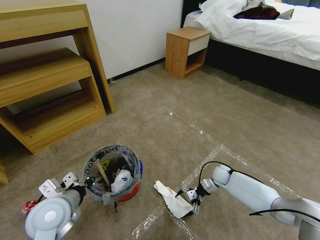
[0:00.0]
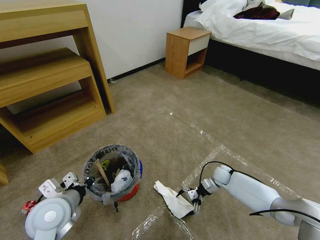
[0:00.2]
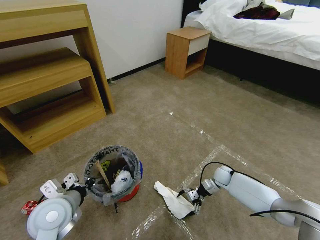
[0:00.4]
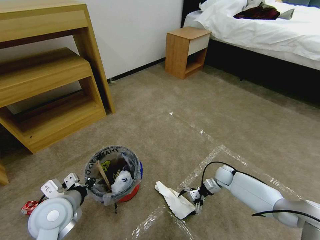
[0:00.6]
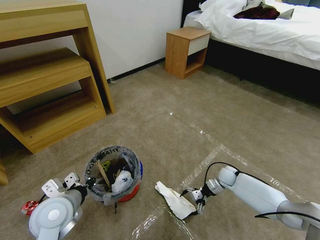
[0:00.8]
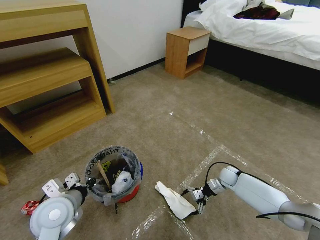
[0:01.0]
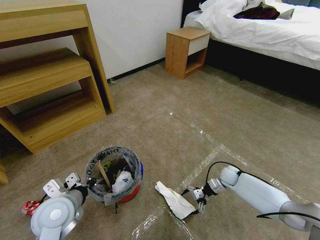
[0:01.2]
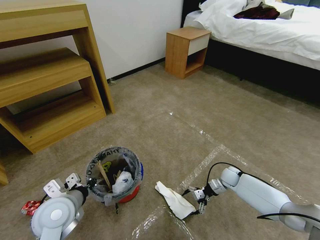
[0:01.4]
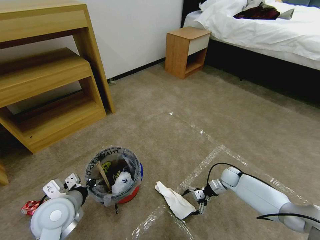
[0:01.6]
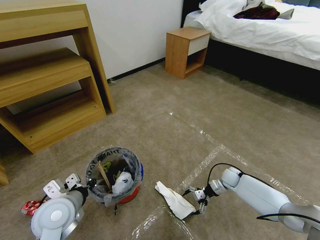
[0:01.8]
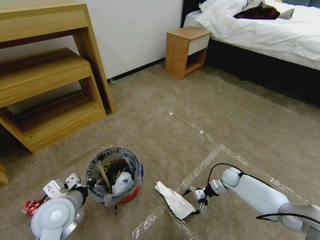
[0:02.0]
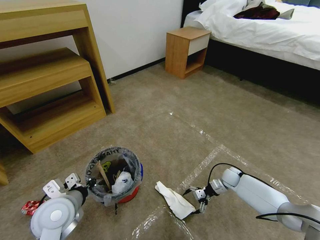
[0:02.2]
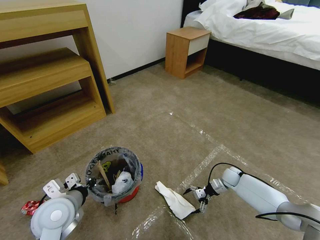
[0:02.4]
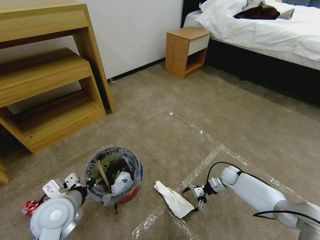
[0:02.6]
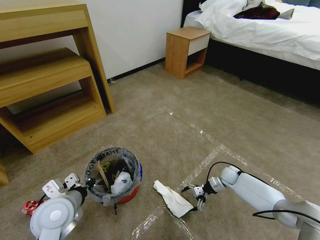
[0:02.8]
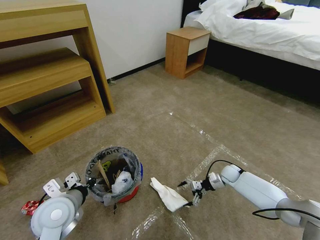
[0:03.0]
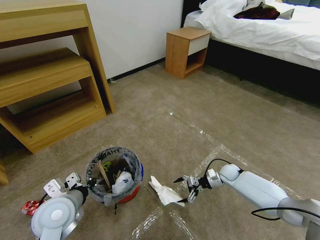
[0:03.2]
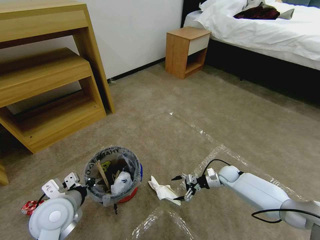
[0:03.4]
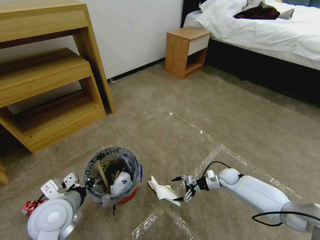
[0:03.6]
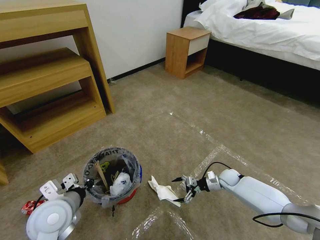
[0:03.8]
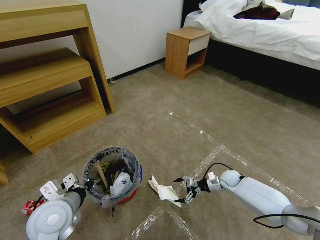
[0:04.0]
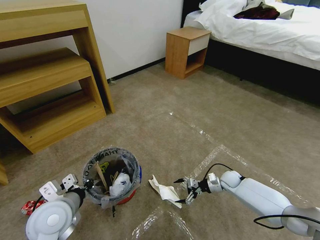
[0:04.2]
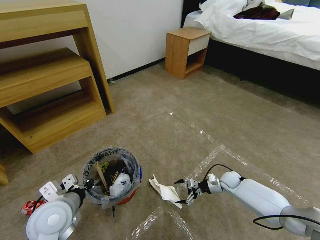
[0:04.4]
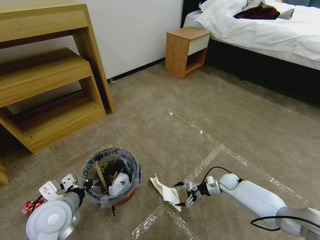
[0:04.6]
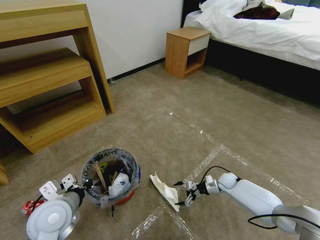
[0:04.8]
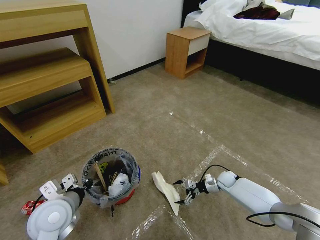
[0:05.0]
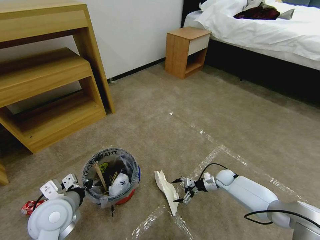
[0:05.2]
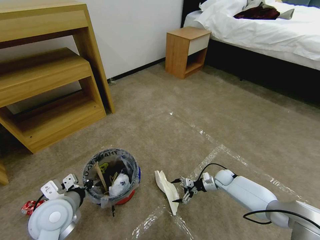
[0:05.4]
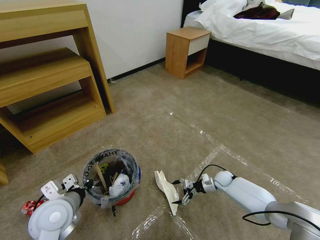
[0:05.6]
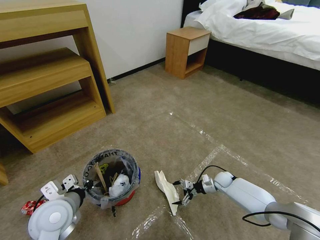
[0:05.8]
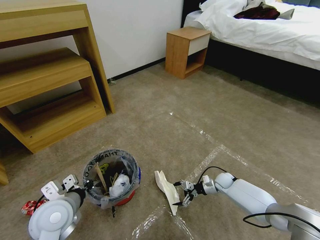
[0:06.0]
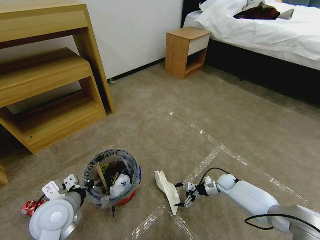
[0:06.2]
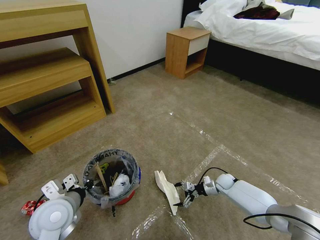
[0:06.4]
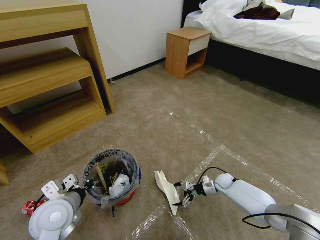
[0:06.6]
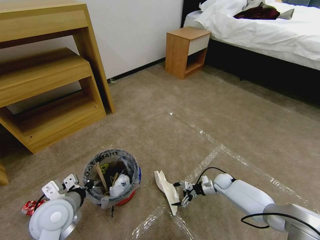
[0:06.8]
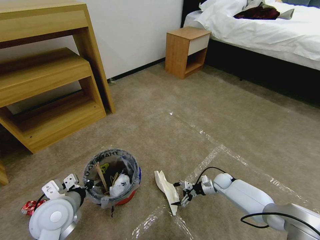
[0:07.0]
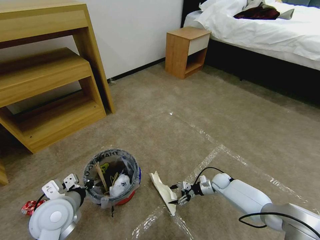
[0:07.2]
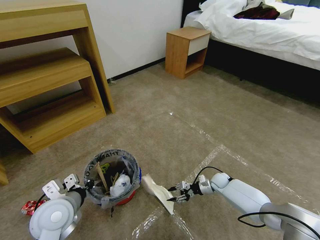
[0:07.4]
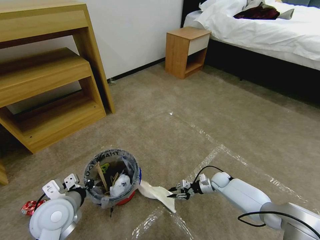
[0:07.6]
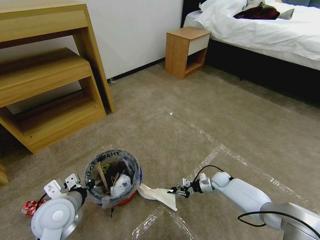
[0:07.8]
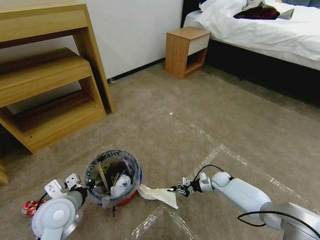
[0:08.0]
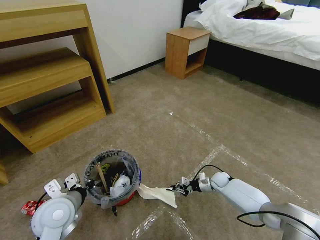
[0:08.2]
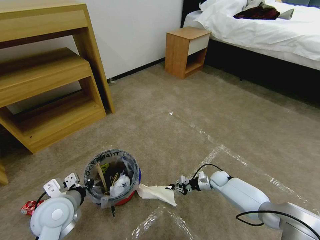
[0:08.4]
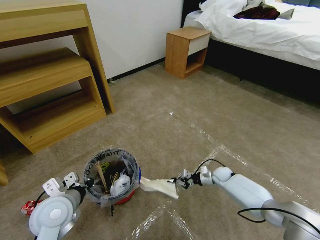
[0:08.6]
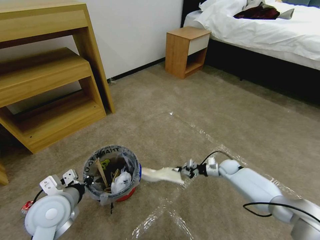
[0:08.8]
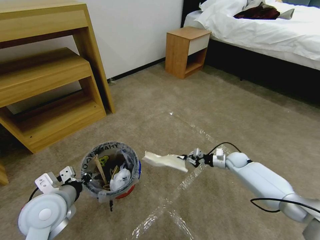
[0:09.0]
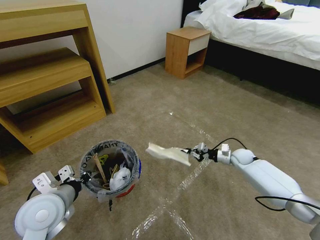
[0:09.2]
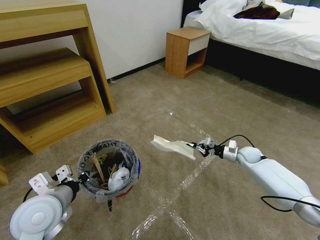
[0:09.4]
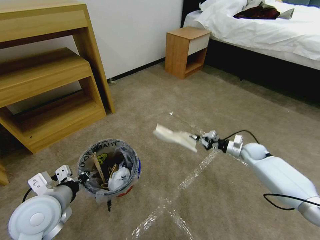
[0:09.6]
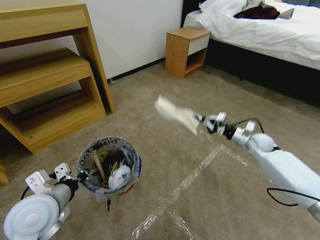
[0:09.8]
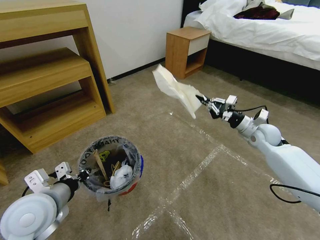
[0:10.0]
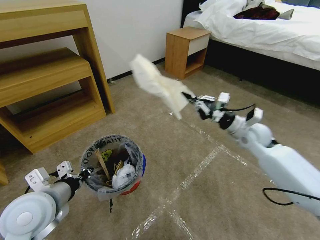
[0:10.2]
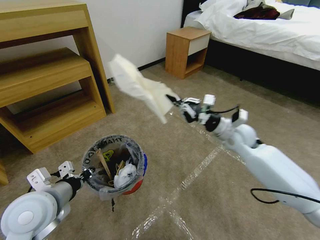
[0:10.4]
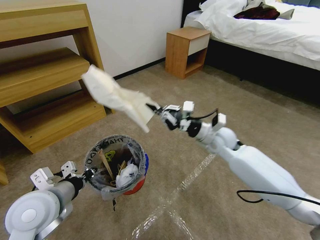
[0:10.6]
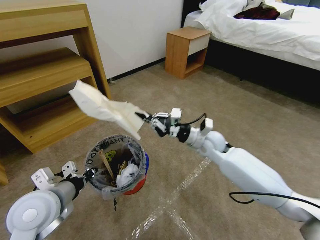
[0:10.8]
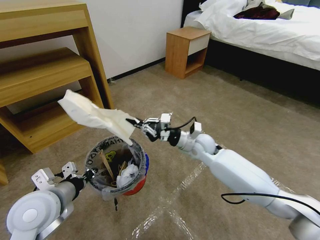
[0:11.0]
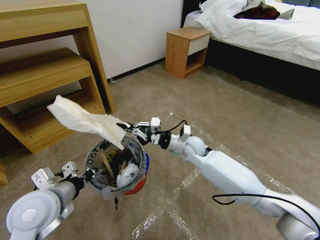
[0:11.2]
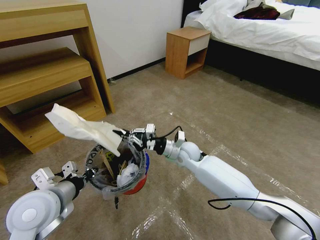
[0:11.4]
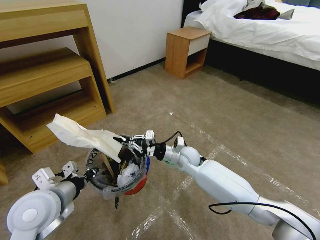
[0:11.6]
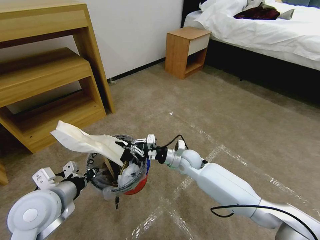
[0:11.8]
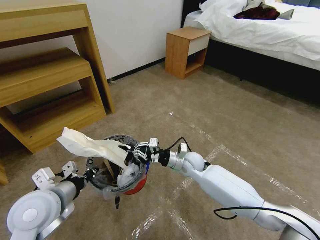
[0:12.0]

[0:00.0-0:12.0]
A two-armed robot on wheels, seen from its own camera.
Task of the whole recording: Pick up the trash bin and place the garbage on the floor into it.
0:00.0 to 0:03.0: The grippers move only a little.
0:03.0 to 0:06.0: The grippers make only small movements.
0:06.0 to 0:07.6: The right gripper closes.
0:07.6 to 0:09.0: The right gripper heads upward, to the right and forward, covering some 10 cm.
0:09.0 to 0:10.4: The right gripper shifts roughly 25 cm upward and to the left.
0:10.4 to 0:12.0: The right gripper moves to the left and downward, approximately 20 cm.

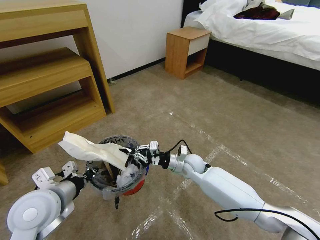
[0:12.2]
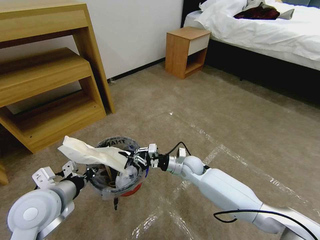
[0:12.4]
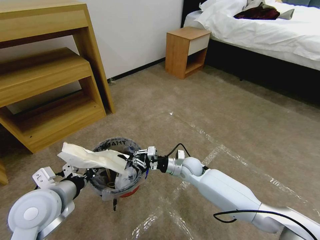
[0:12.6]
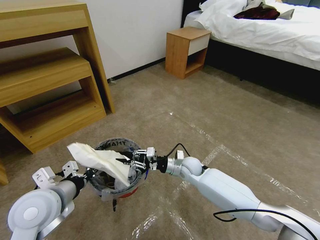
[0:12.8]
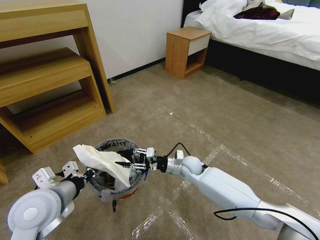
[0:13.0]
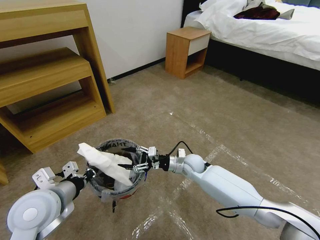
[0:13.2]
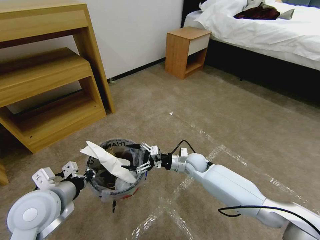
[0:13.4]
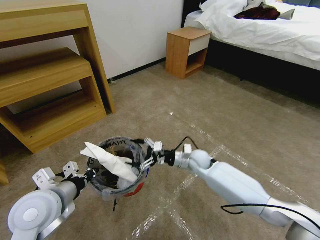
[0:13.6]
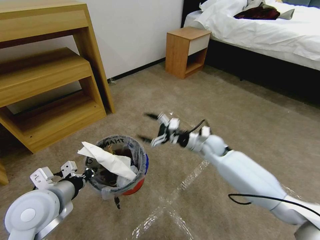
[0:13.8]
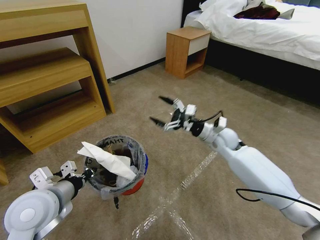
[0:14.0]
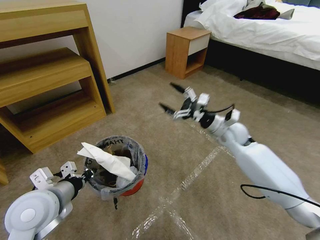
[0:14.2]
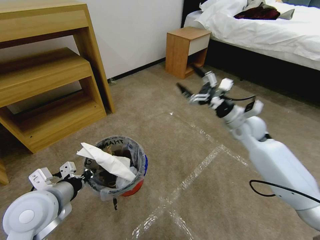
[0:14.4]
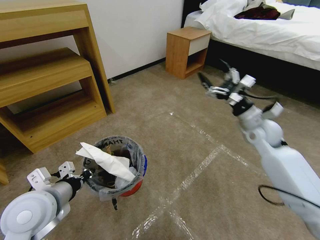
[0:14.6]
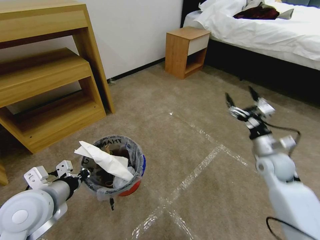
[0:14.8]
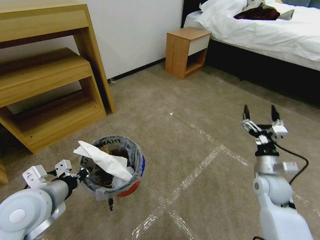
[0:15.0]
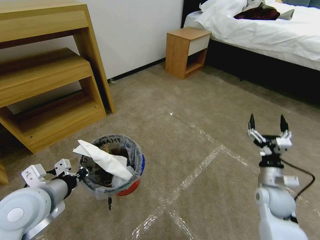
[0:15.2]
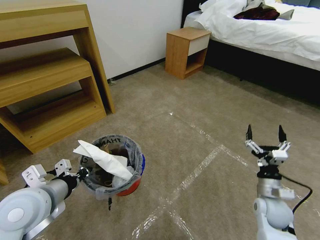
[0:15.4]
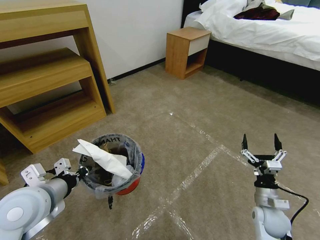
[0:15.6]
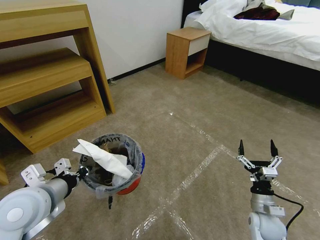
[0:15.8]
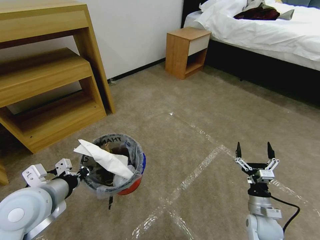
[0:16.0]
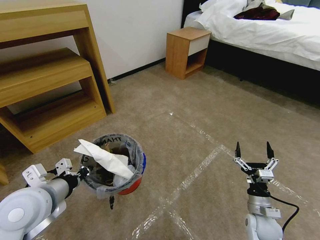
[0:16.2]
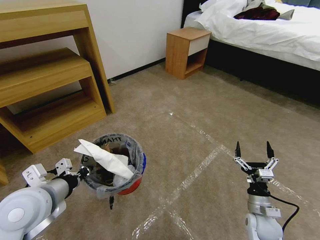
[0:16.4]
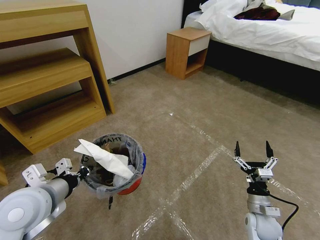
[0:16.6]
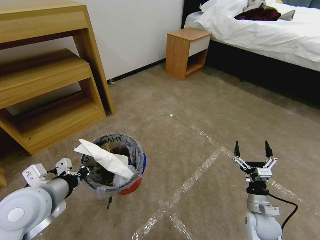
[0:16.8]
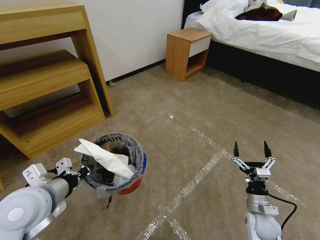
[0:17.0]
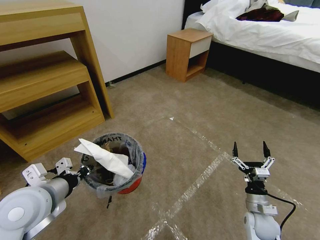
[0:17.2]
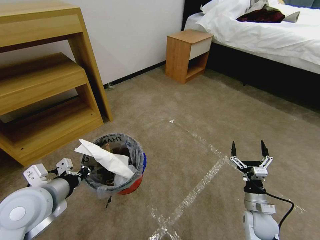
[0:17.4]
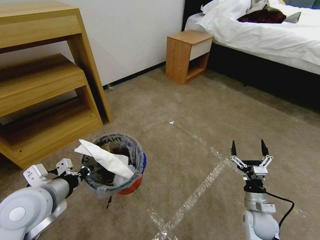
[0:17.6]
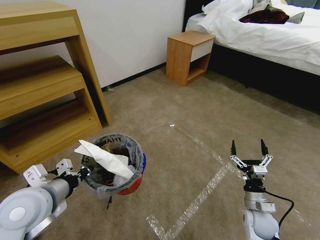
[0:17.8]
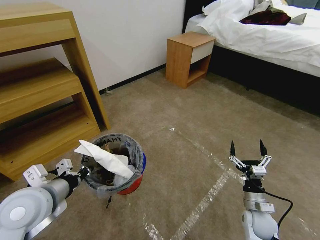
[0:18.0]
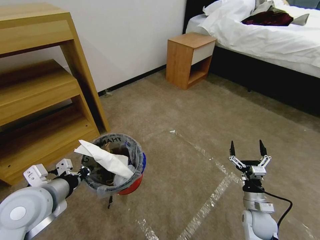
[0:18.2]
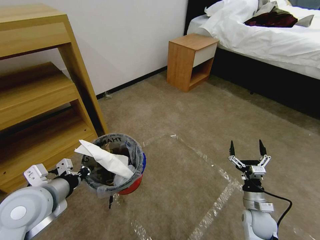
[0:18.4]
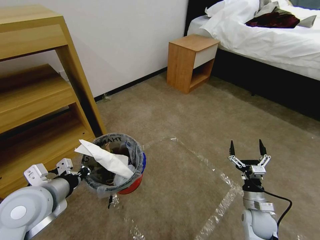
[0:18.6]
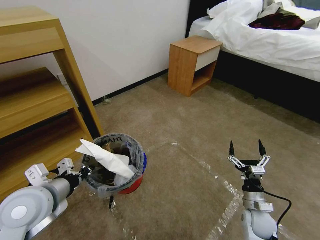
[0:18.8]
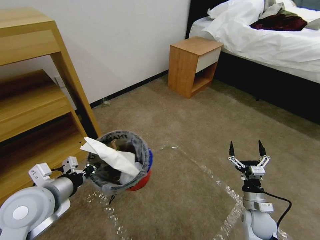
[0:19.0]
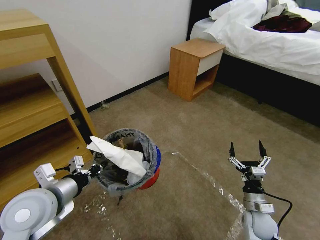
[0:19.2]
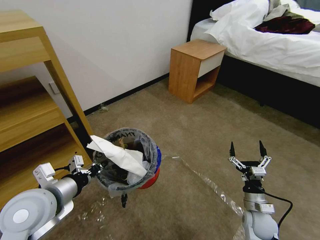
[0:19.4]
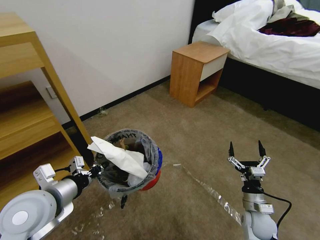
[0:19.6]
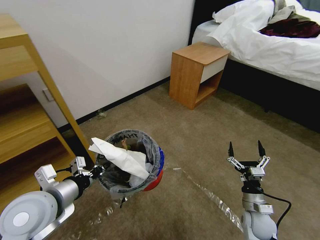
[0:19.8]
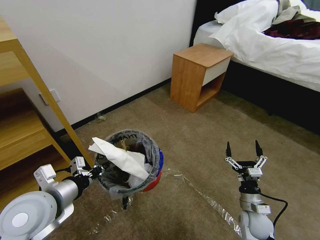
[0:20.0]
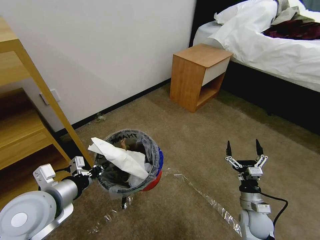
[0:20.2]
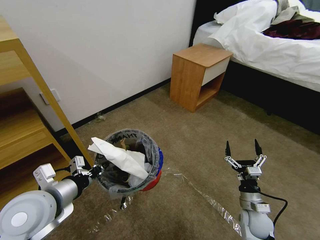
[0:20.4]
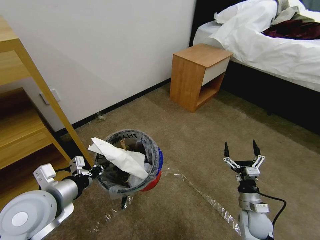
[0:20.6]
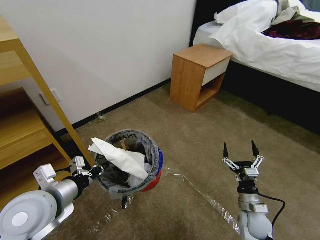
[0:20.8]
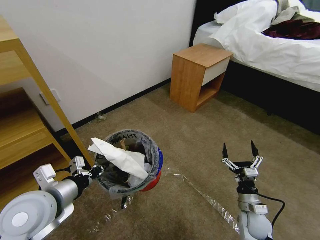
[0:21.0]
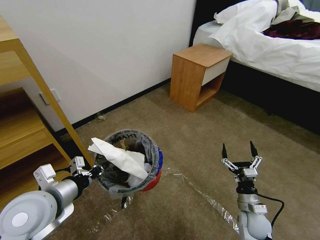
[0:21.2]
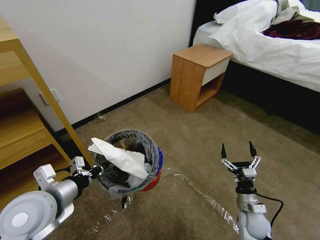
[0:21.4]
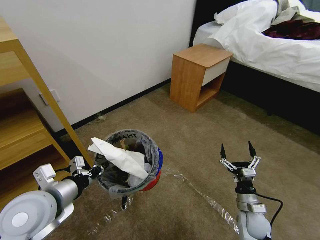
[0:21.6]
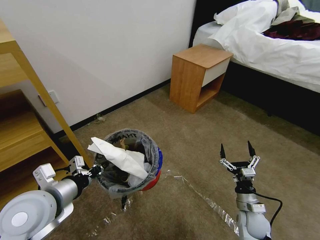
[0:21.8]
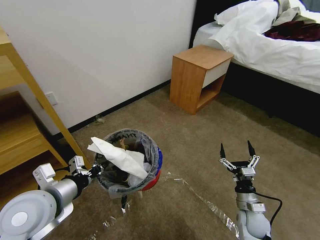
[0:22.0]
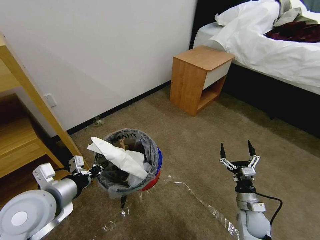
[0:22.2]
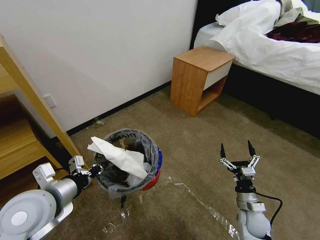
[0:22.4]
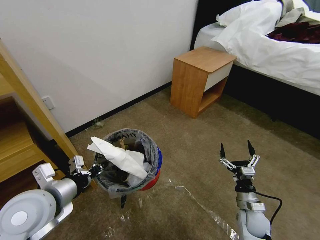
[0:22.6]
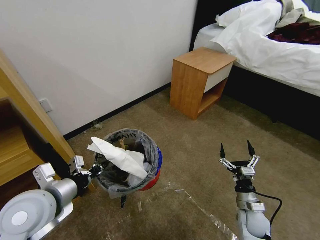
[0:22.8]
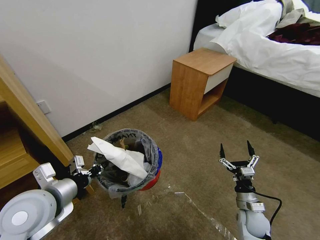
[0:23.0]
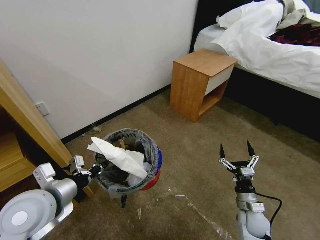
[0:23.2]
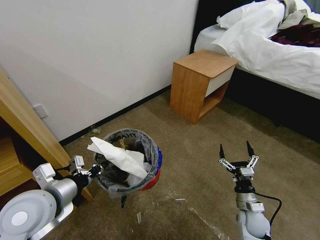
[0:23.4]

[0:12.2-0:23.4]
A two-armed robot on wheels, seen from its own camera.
Task of the whole recording: Pick up the trash bin and place the garbage on the floor into it.
0:12.2 to 0:13.8: The right gripper is displaced upward and to the right by about 10 cm, and opens.
0:13.8 to 0:15.4: The right gripper is displaced backward and to the right by approximately 25 cm.
0:15.4 to 0:17.0: The right gripper heads downward, covering approximately 5 cm.
0:20.2 to 0:21.8: Both grippers stay put.
